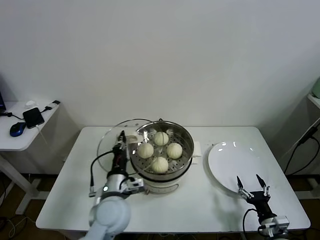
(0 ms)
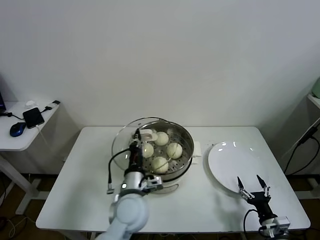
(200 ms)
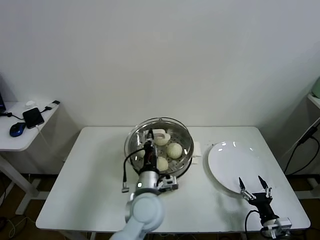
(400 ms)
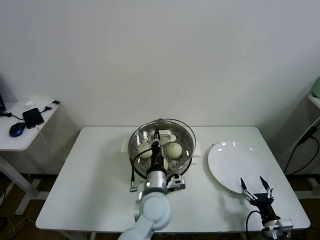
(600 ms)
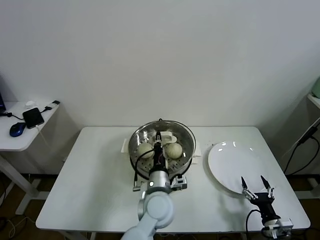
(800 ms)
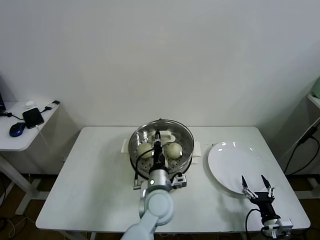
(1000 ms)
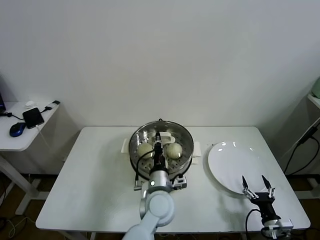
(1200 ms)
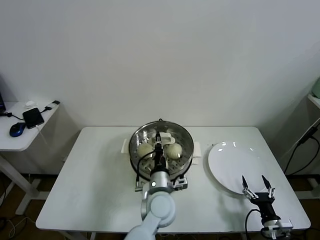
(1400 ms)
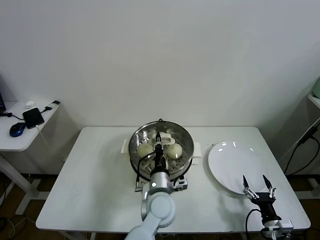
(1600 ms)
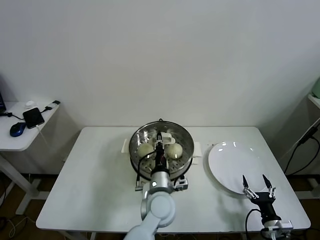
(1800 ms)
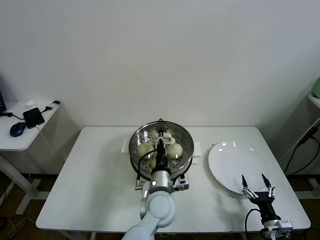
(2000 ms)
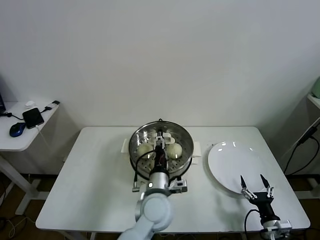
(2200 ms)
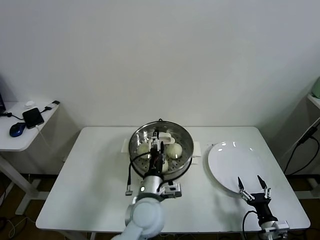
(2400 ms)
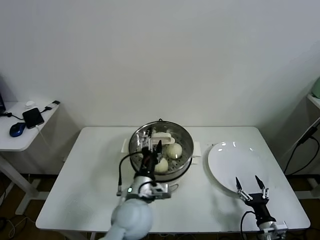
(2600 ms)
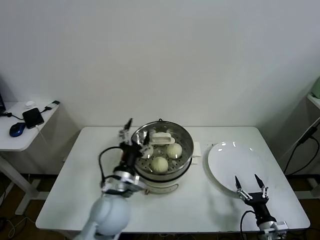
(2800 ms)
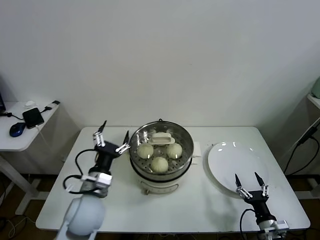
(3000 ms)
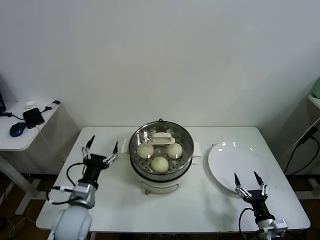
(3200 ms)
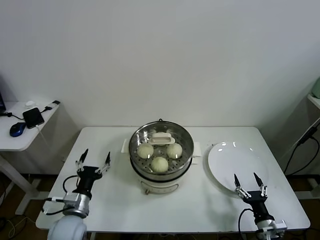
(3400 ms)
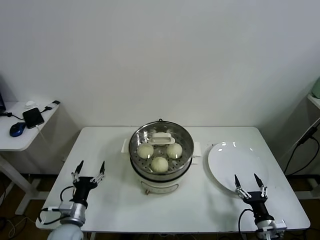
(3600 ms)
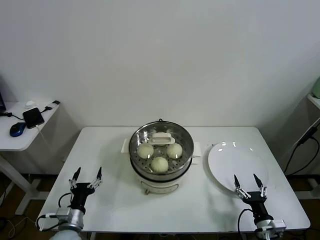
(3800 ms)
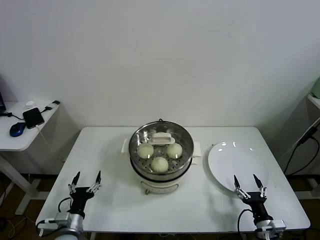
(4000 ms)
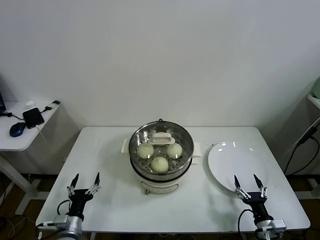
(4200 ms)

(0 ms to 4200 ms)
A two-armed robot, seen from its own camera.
Task of the whole recording: take steamed baozi put them in steamer.
Step, 0 ms - 2000 ms: Place the pot lid on the steamer with left gripper.
0 ms - 1400 ms: The left gripper travels to the right by some 15 cm.
1400 ms - 2800 ms: The left gripper is displaced to the left and upward by some 10 cm, and opens up.
2800 ms - 4200 ms: The left gripper shifts roughly 25 cm to the left and downward.
